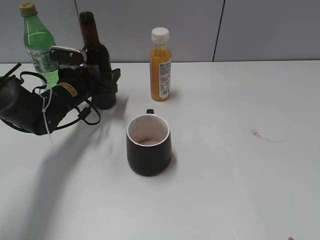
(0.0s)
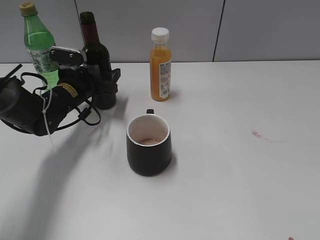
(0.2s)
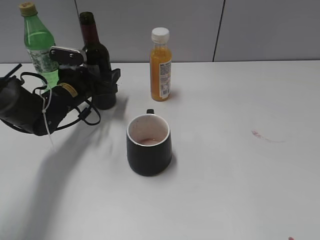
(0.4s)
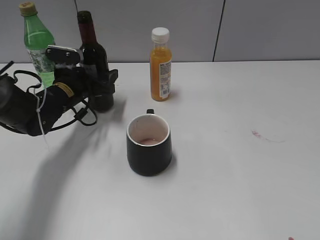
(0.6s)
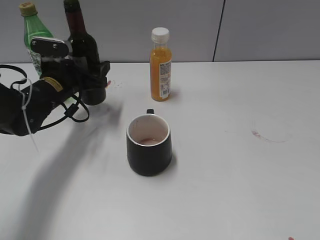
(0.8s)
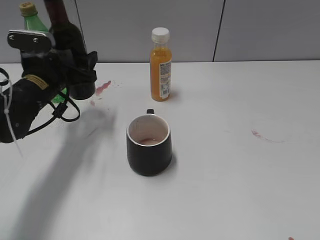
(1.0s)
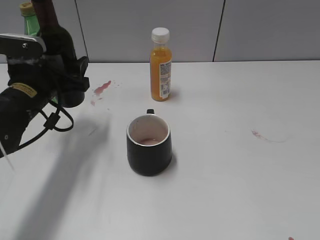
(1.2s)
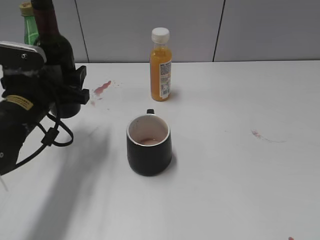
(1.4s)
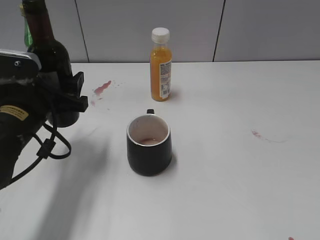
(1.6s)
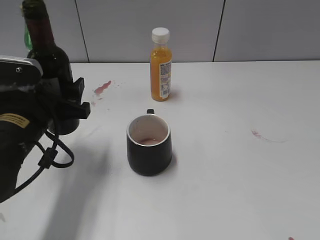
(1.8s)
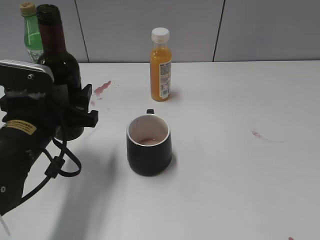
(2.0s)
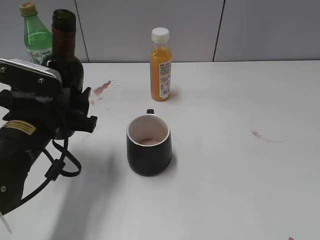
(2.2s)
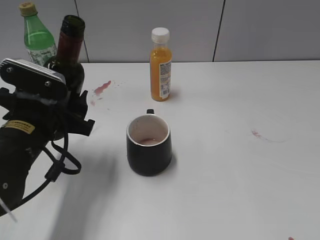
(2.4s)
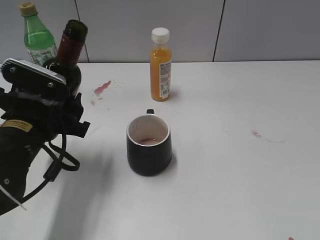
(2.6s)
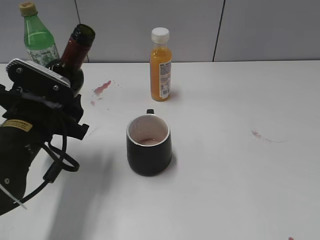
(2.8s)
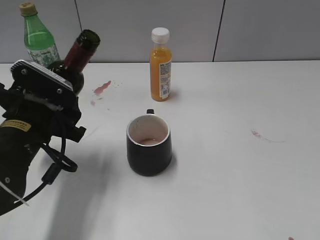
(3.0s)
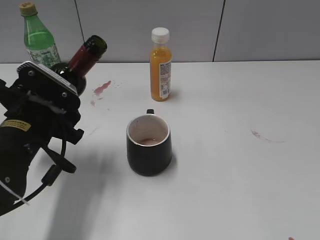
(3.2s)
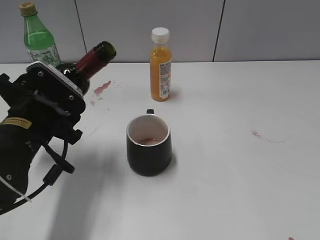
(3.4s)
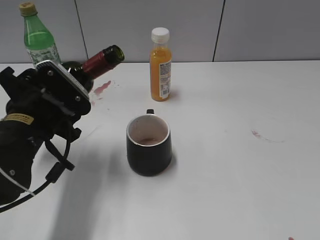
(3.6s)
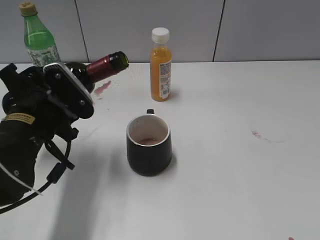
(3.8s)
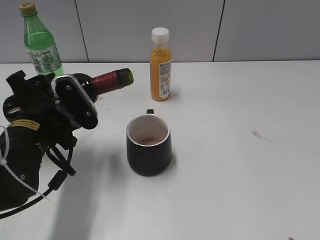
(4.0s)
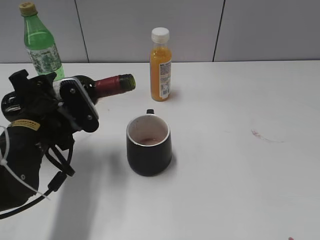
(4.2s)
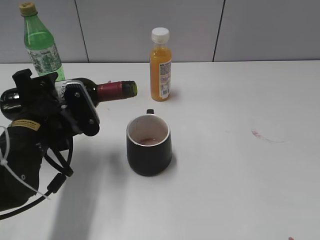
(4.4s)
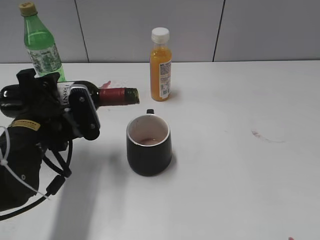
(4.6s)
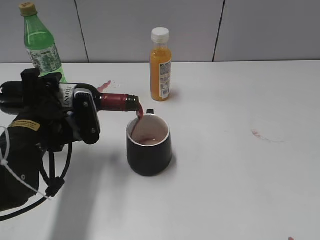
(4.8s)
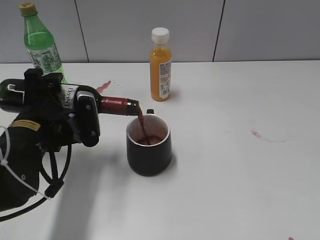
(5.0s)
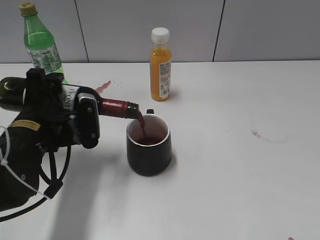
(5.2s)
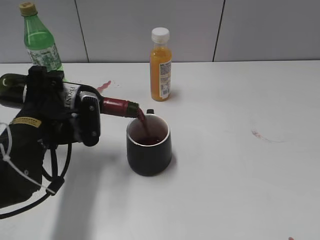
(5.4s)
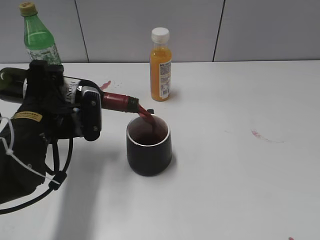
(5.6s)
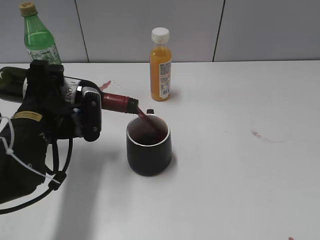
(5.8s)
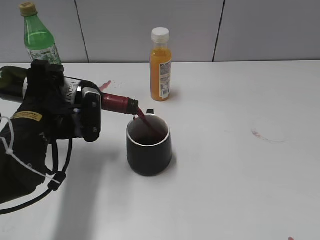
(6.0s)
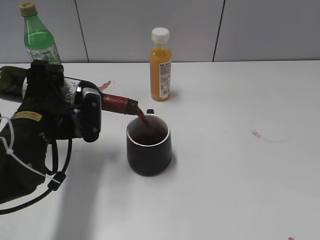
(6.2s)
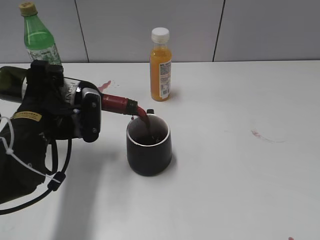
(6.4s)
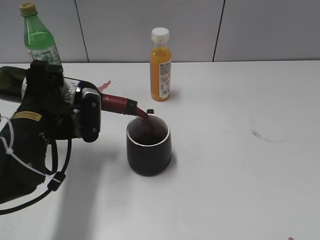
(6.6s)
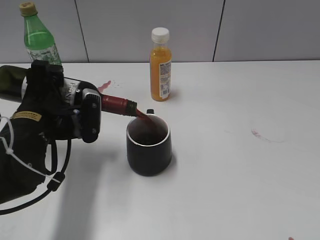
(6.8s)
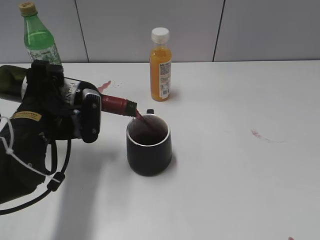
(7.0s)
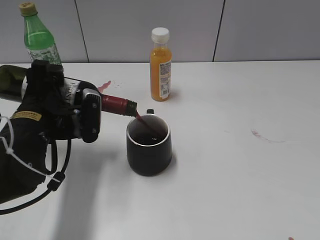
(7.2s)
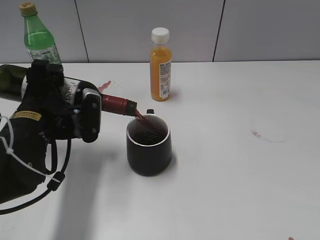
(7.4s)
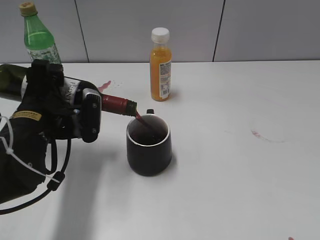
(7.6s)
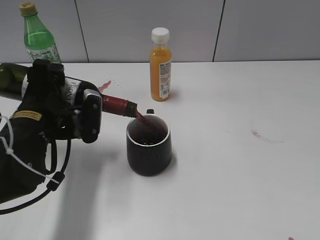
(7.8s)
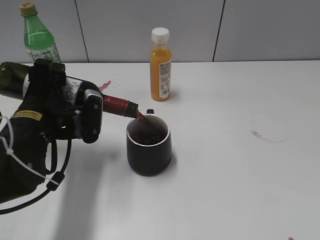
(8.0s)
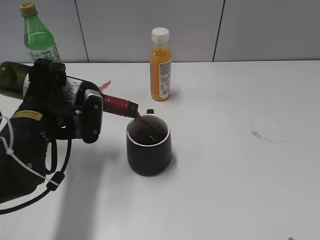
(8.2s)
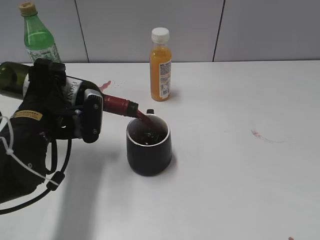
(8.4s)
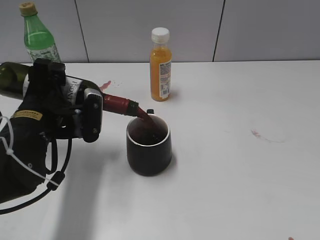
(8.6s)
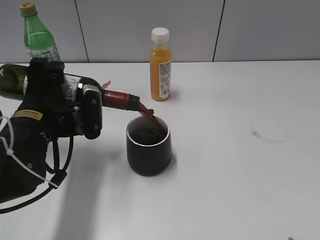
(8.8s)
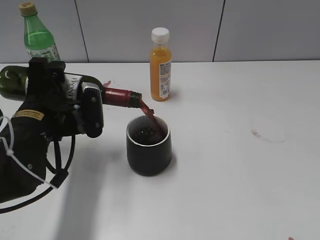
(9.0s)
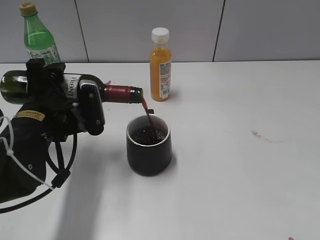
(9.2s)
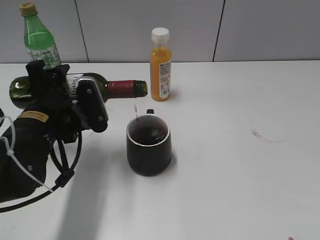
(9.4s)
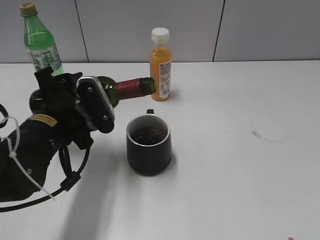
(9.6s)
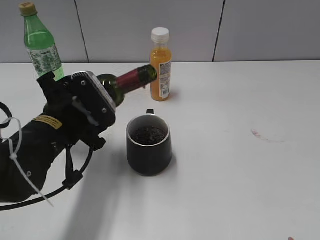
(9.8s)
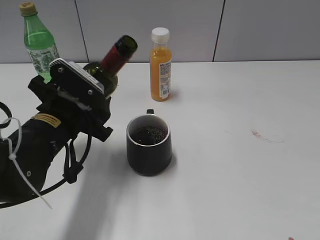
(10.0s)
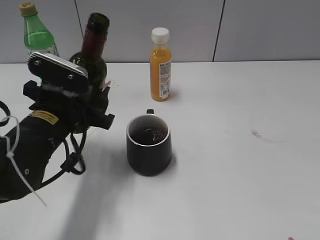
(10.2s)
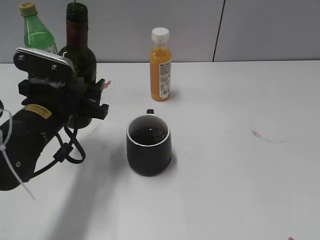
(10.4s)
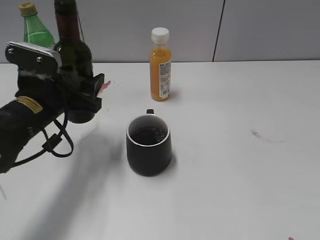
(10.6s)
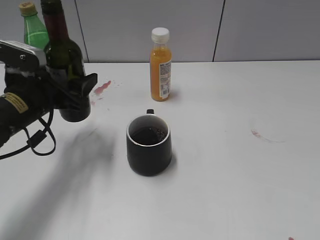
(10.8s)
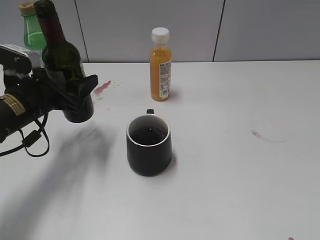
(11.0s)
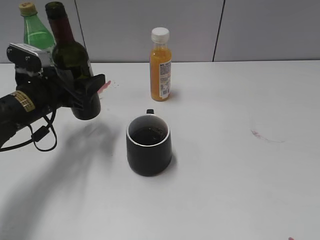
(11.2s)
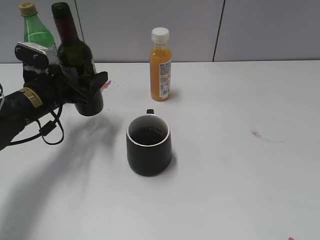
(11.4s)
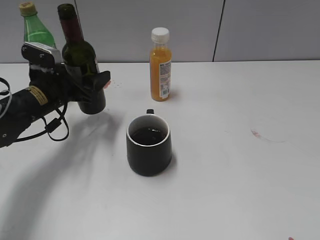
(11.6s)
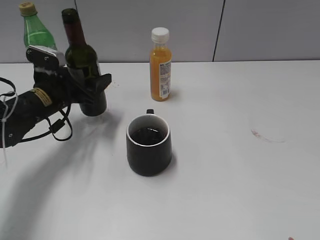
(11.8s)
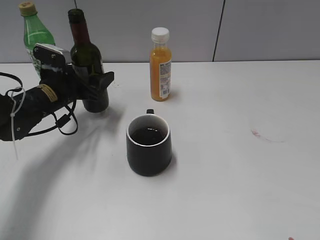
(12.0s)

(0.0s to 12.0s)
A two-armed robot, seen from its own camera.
Step, 0.4s - 9.6s: Pour the red wine from bottle to cup with left gripper.
0.0s - 1.6s: The left gripper shifts about 15 cm backward and upward.
6.0s - 7.6s: Neither gripper changes place.
7.6s - 9.0s: The grippers move only a little.
10.4s - 12.0s: The left gripper heads forward, covering about 10 cm.

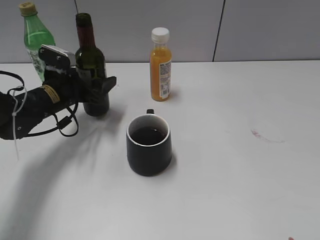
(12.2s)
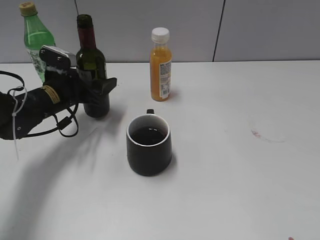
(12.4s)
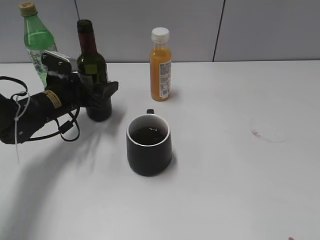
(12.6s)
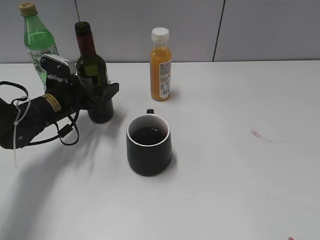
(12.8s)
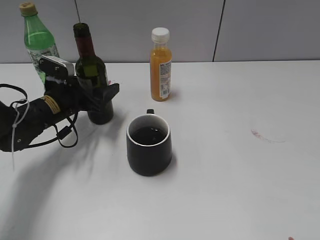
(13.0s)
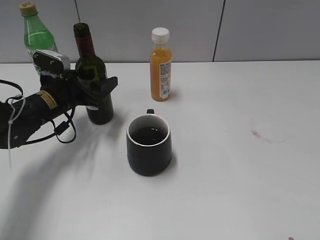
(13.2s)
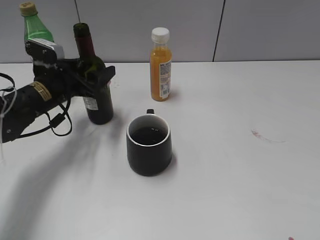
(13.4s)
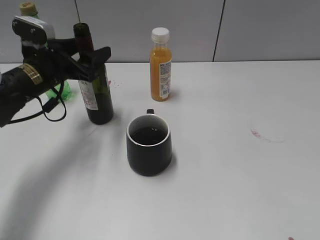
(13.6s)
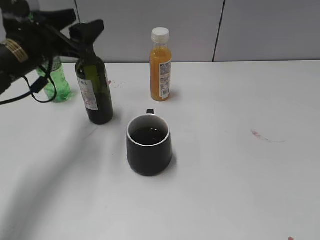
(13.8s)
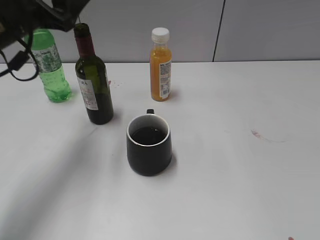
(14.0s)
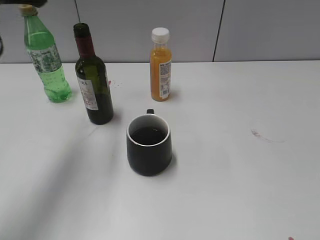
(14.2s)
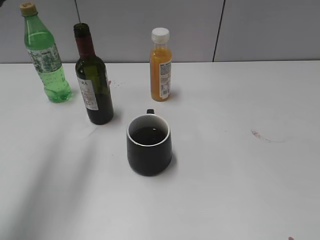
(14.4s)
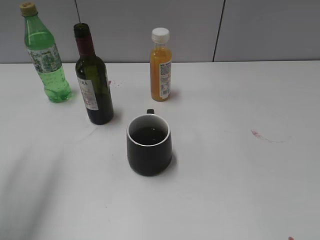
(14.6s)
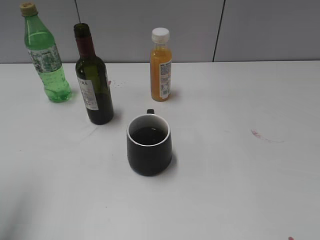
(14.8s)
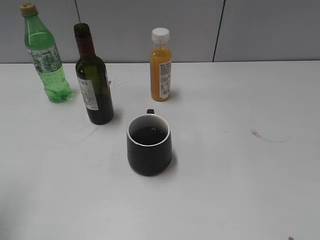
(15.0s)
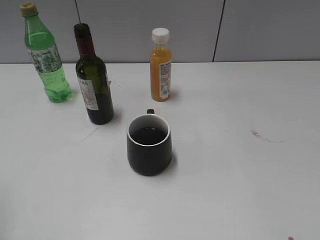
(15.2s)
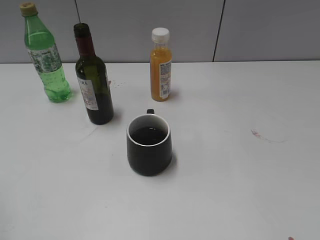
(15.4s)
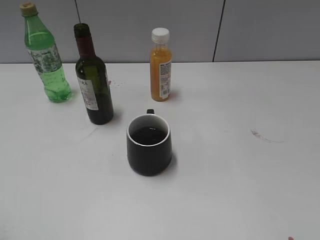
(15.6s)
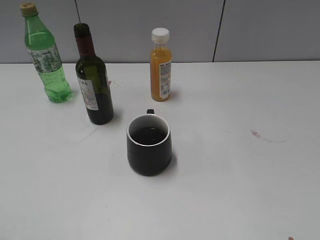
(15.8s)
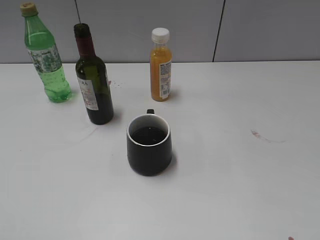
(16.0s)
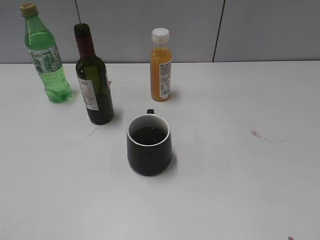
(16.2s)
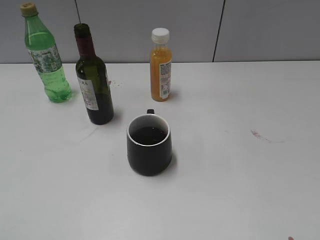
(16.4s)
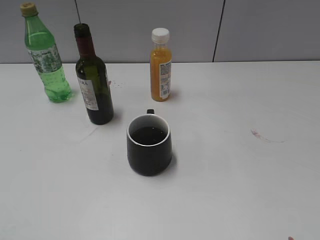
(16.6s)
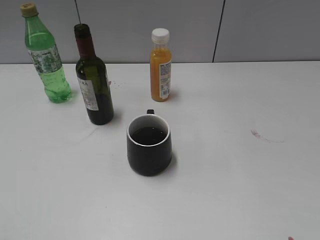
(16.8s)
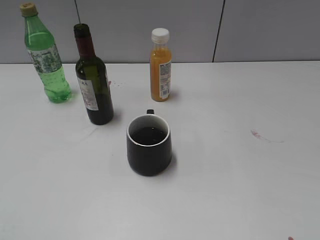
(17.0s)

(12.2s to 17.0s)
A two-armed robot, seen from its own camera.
12.2s - 13.8s: The left gripper is displaced upward by some 10 cm, and opens its fingers.
13.8s - 15.4s: The left gripper moves backward, to the left and upward, about 25 cm.

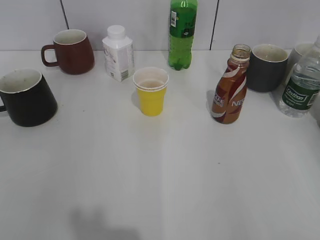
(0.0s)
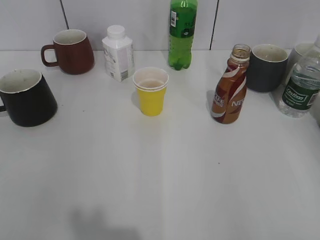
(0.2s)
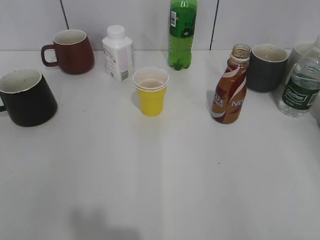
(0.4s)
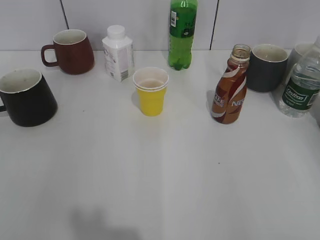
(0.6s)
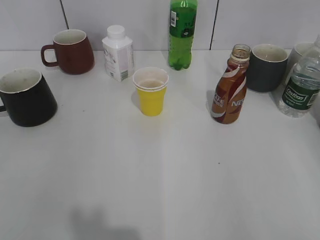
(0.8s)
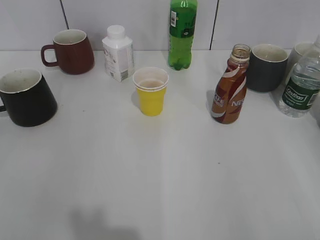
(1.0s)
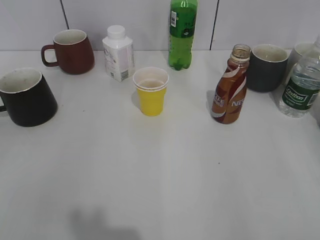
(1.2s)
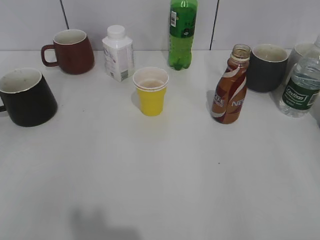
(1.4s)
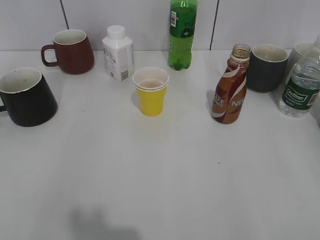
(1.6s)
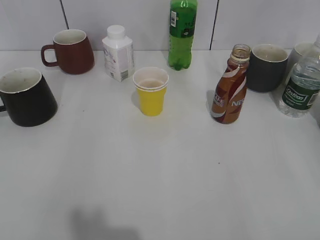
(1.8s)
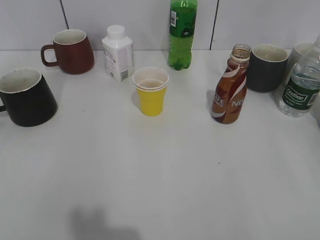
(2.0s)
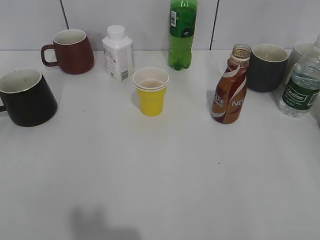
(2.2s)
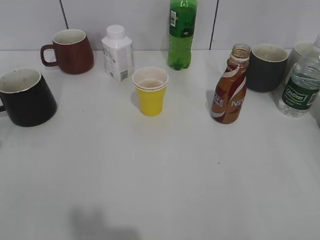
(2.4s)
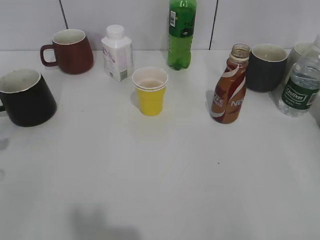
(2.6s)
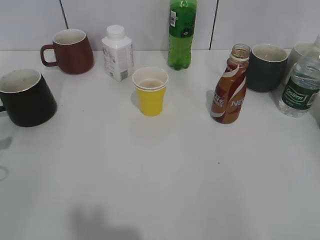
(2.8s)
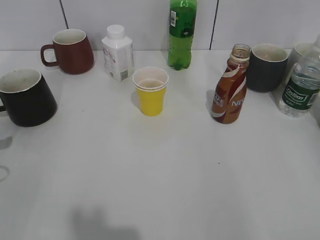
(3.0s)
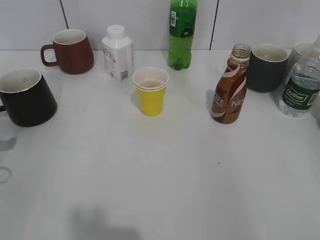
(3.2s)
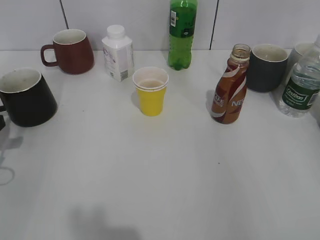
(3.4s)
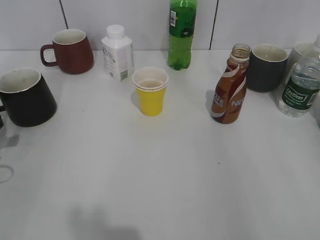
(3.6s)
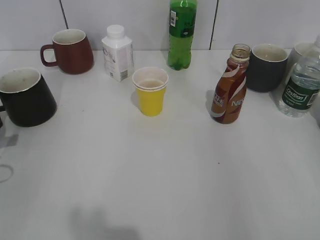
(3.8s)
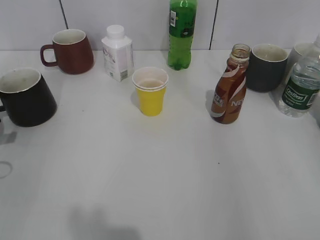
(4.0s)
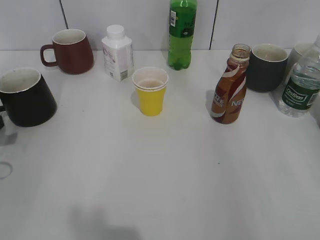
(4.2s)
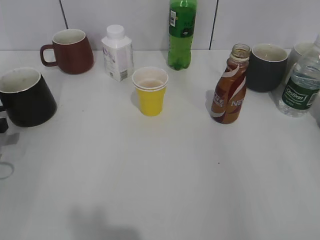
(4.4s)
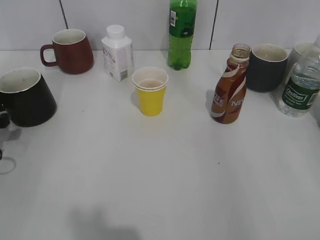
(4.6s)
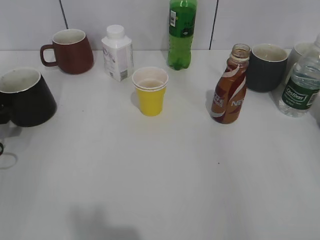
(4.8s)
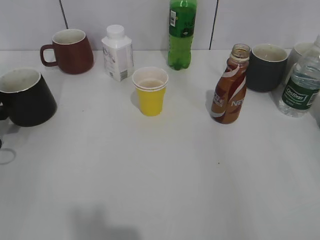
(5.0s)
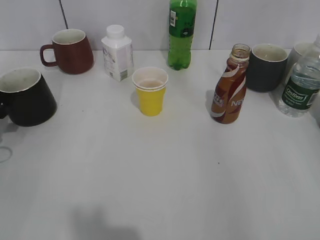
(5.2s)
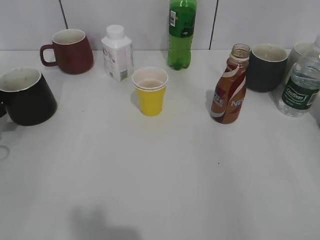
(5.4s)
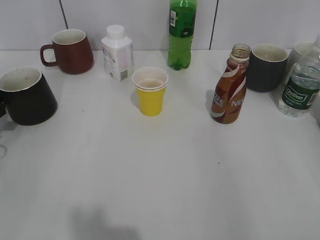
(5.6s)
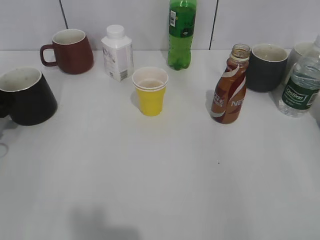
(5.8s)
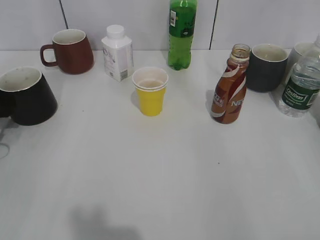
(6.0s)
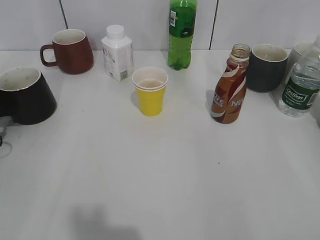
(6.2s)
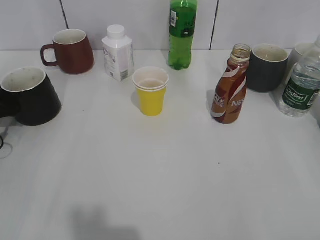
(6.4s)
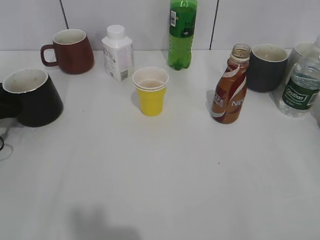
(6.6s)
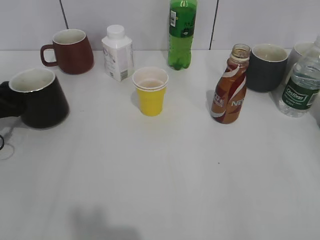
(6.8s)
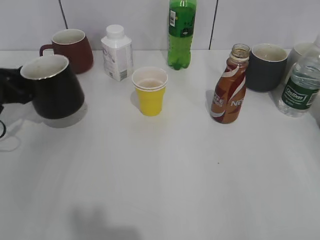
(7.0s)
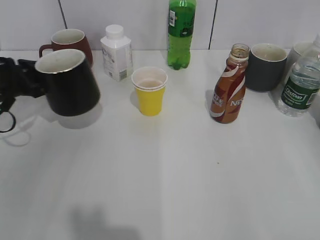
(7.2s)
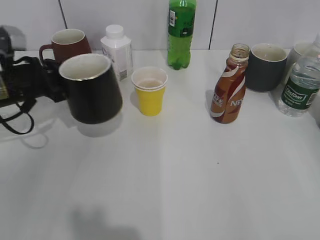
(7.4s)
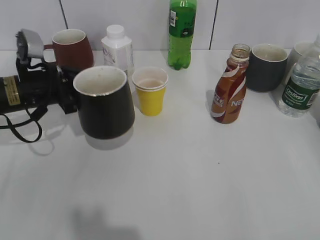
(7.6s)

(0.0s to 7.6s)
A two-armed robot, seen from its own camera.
3.0s - 4.6s: The left gripper opens up.
4.6s - 6.0s: The left gripper moves approximately 5 cm.
6.0s - 7.6s: The left gripper shifts approximately 15 cm to the right, and closes up.
